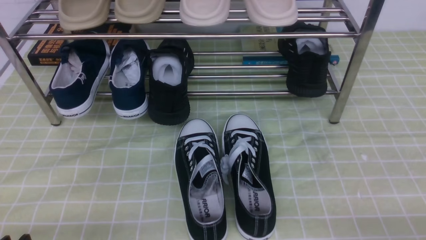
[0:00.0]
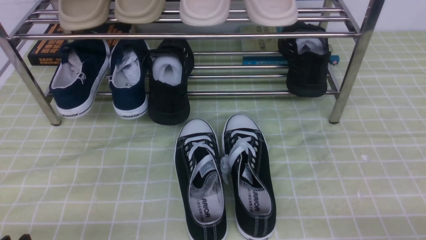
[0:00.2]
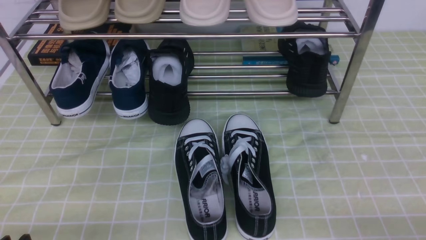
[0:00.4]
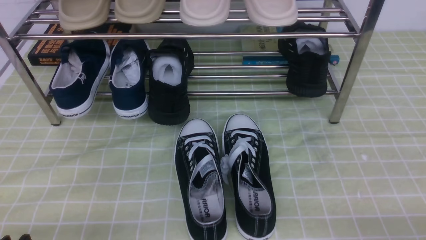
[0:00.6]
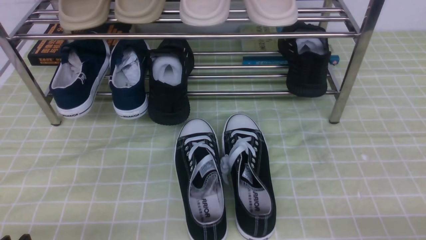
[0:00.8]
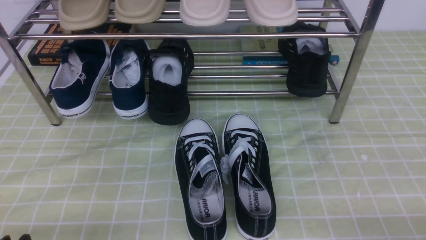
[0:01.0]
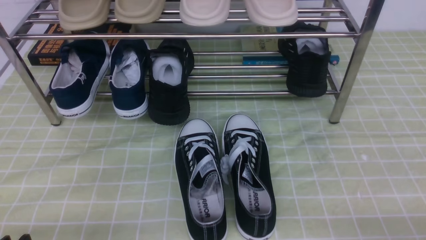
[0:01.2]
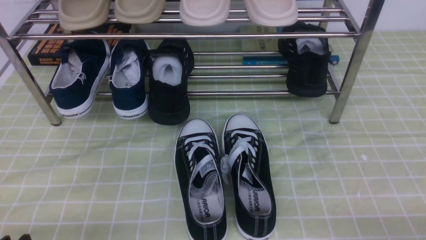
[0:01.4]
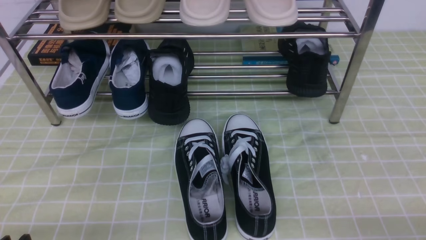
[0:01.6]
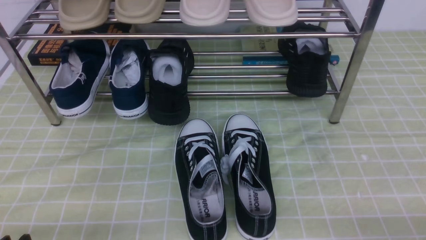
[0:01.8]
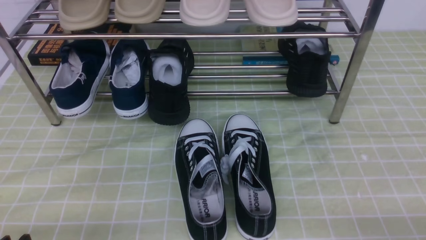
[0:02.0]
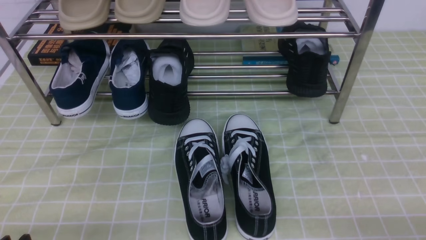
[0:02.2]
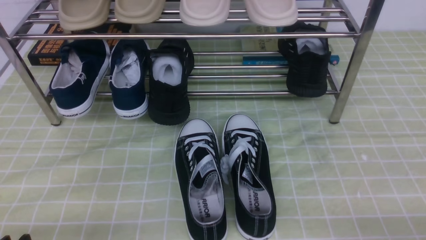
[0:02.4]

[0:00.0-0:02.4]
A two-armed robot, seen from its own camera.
0:00.0 to 0:02.4: Both grippers stay about where they are.
